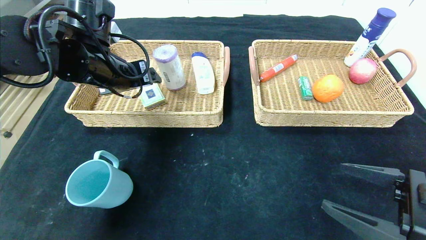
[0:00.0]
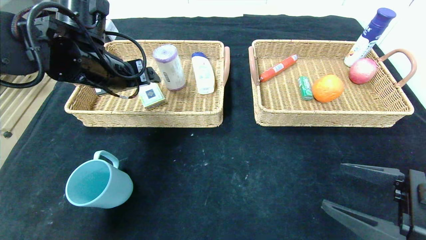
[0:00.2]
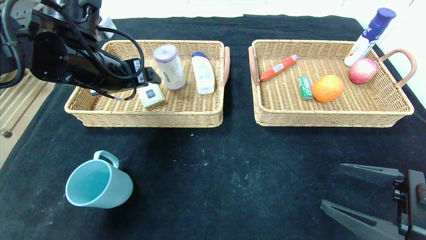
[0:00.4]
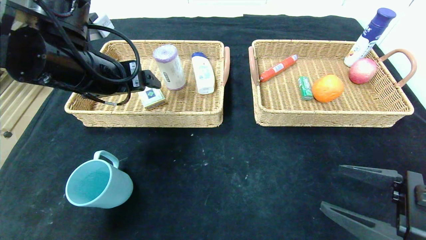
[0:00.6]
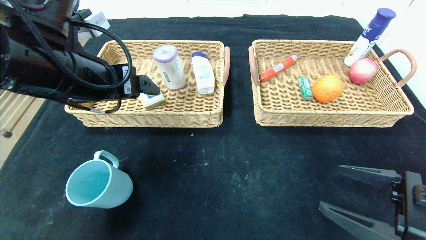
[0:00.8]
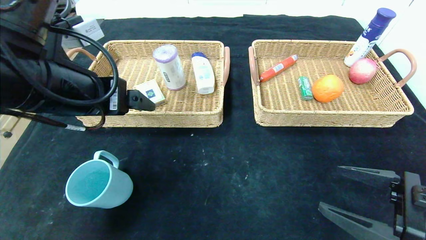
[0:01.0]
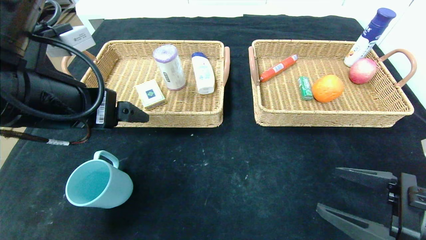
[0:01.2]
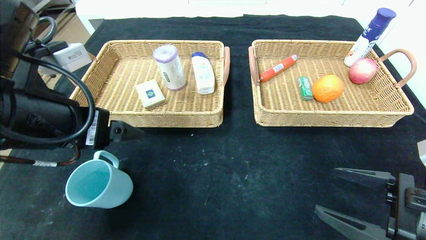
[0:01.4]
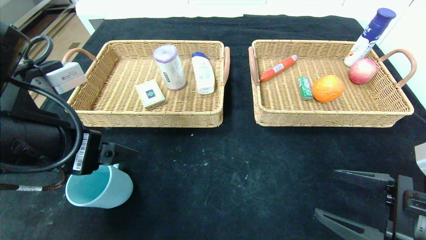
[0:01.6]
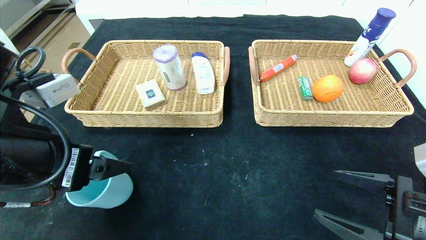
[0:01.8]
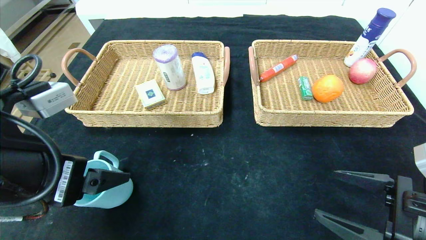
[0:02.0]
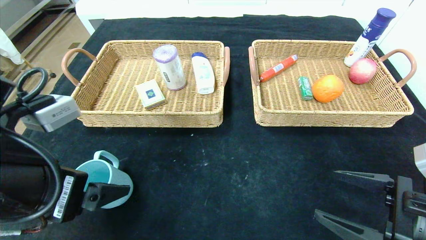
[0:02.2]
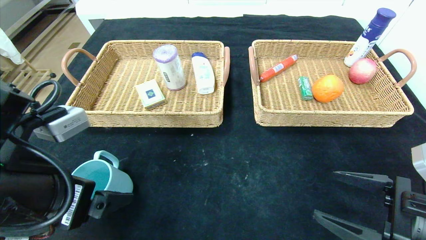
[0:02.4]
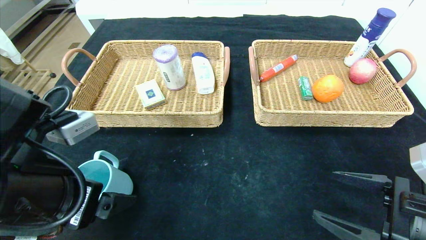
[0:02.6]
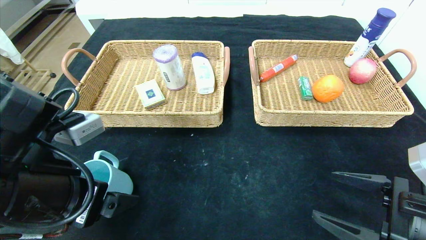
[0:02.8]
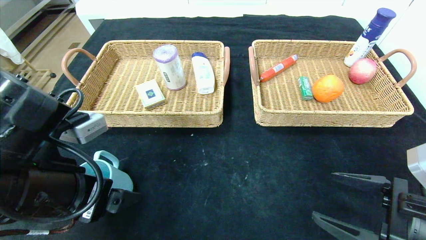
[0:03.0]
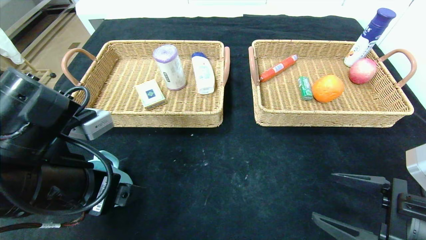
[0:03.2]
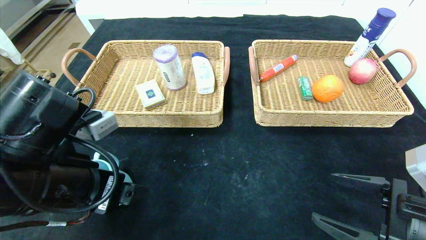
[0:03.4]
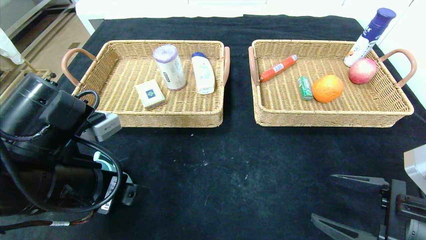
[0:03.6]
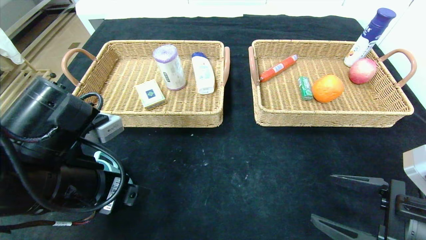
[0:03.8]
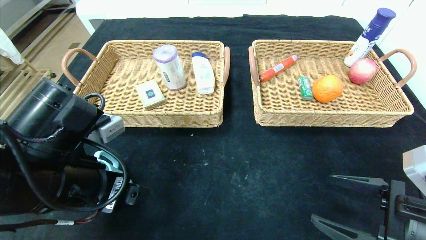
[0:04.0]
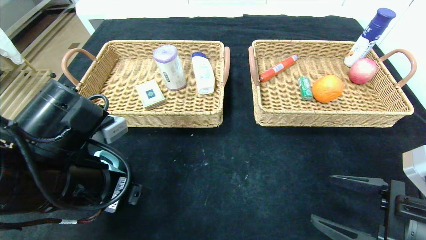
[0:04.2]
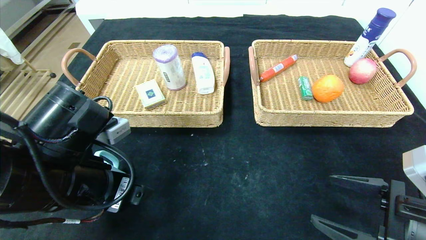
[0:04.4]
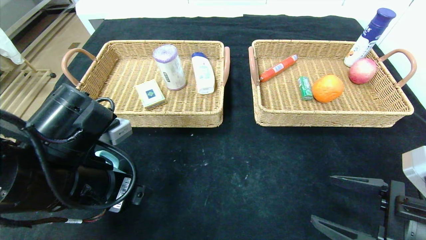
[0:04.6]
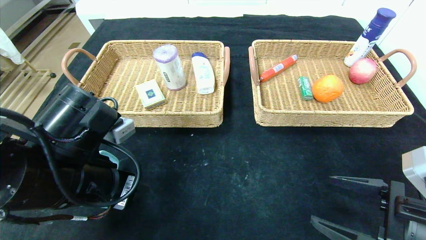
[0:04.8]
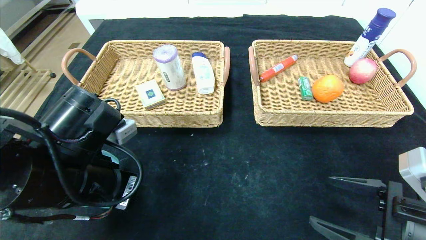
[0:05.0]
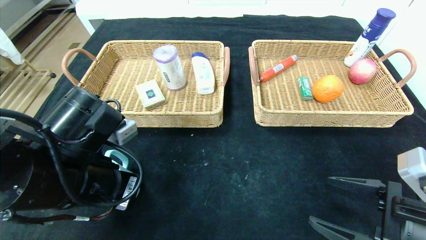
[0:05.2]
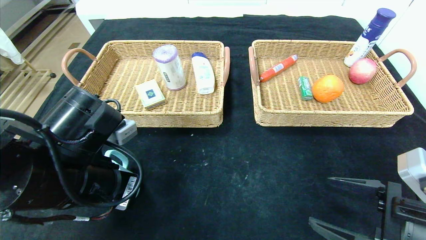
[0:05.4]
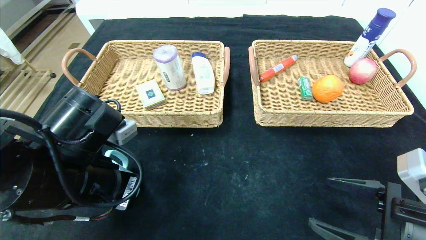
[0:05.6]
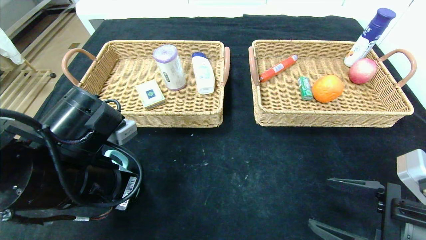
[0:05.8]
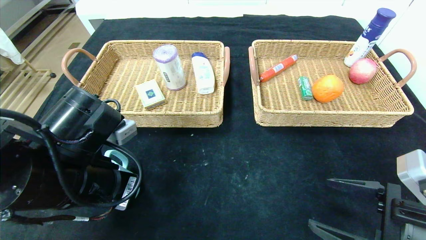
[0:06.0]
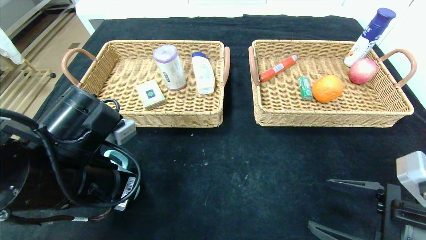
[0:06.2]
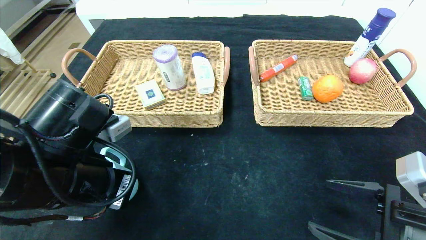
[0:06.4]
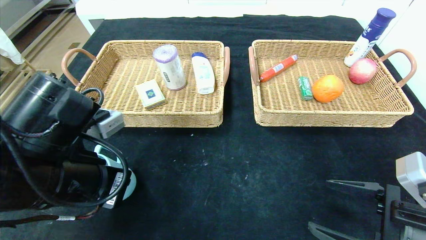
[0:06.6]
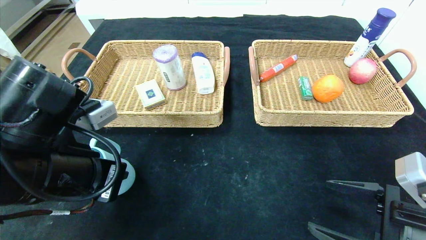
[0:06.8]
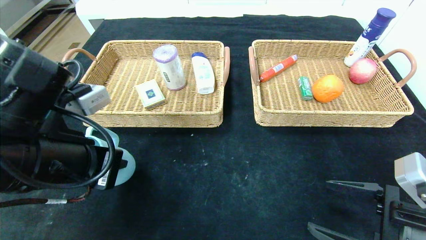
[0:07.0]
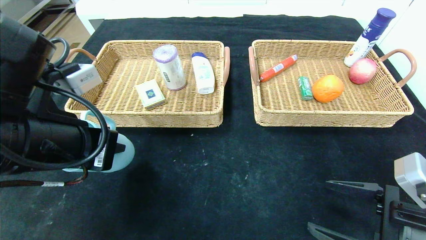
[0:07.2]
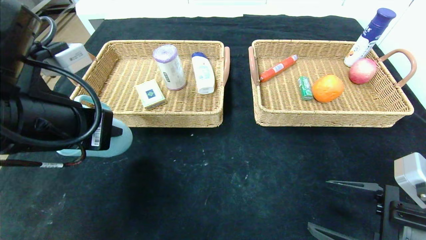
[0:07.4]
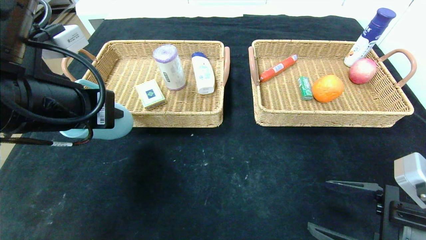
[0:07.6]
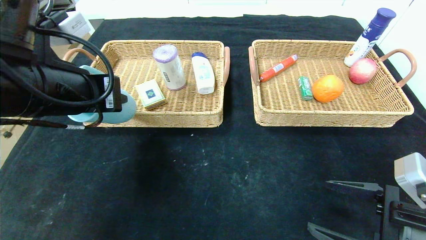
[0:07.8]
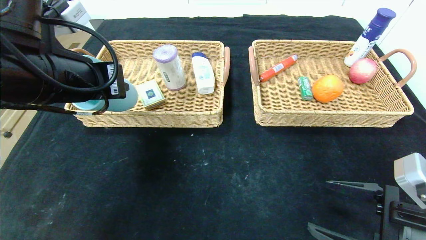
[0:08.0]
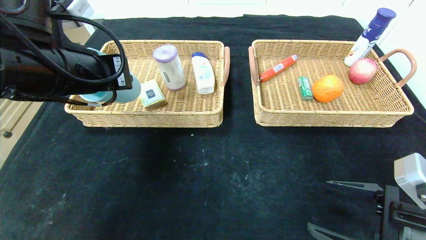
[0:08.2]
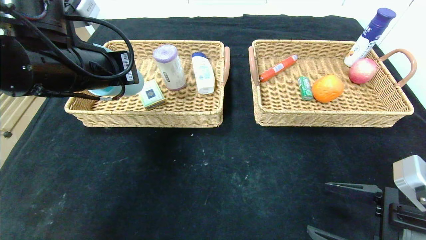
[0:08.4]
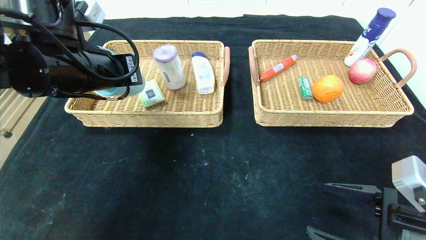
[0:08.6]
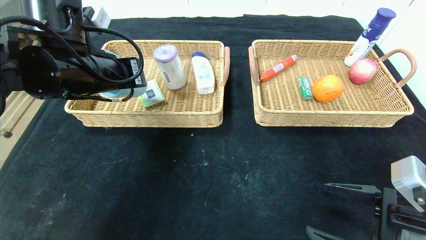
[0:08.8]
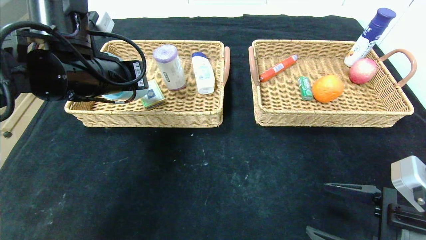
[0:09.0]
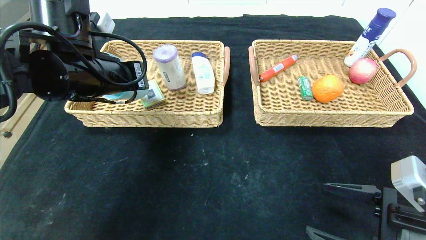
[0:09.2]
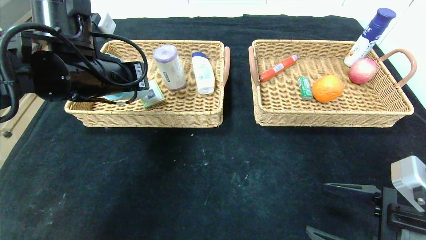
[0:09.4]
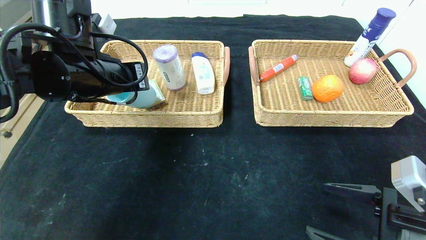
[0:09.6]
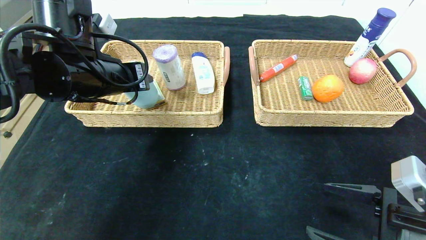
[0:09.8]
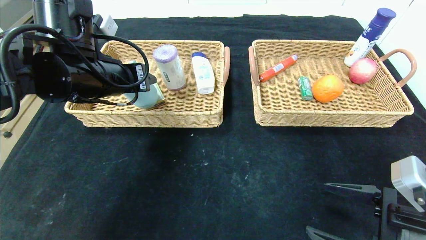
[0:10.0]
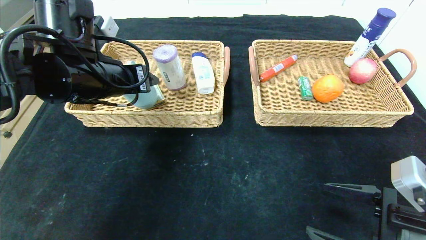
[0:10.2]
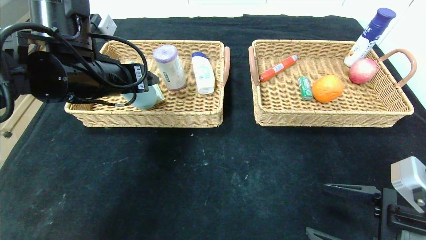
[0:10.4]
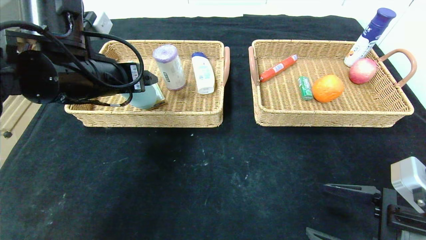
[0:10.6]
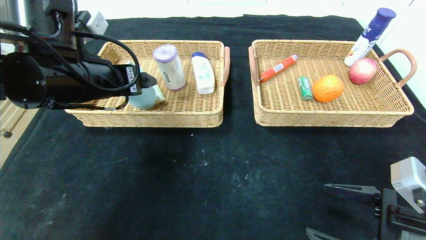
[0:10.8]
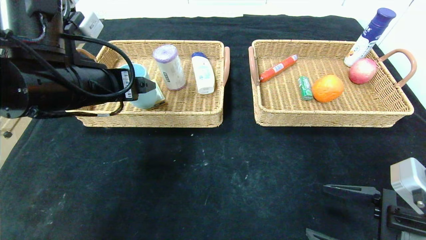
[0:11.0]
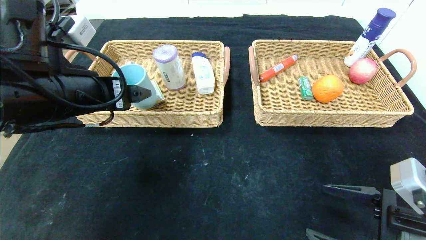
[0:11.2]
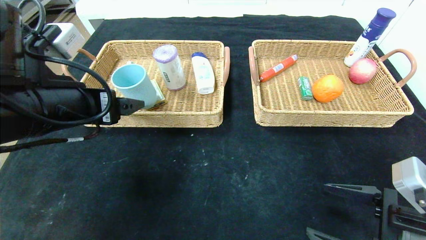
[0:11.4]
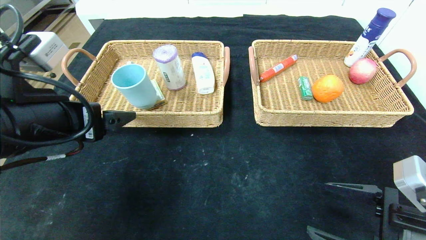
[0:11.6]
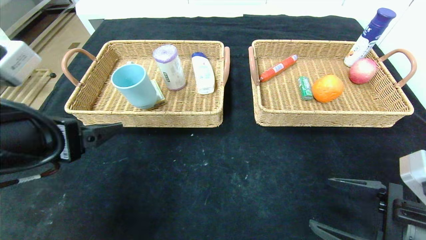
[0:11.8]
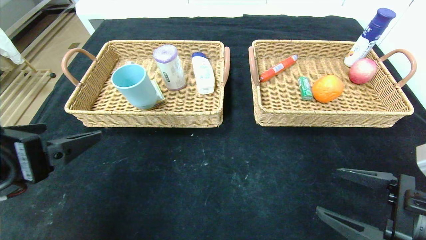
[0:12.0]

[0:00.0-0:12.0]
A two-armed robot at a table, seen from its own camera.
Step, 0:00.0 to 0:09.8: Grasp the blue cup and put it in the left basket.
0:00.0 to 0:01.6: The left gripper moves backward, about 15 cm.
0:01.6 to 0:03.0: The grippers make only small movements.
0:03.0 to 0:04.4: The grippers move only a little.
0:04.4 to 0:06.0: The left gripper closes its fingers.
0:06.0 to 0:07.6: The left gripper goes about 10 cm upward.
0:07.6 to 0:09.0: The left gripper shifts some 10 cm forward.
0:09.0 to 0:10.4: The left gripper opens.
0:10.4 to 0:12.0: The left gripper travels backward by roughly 15 cm.

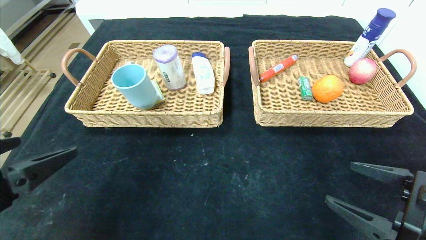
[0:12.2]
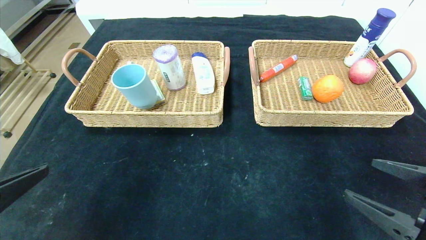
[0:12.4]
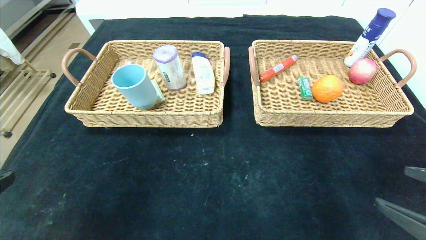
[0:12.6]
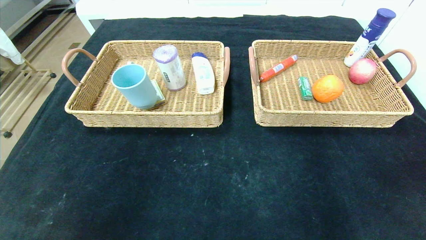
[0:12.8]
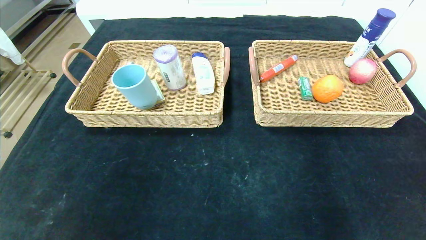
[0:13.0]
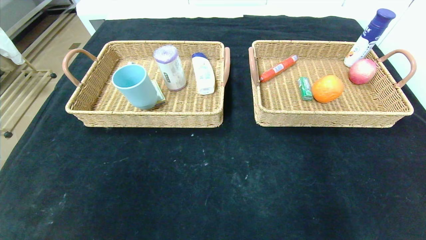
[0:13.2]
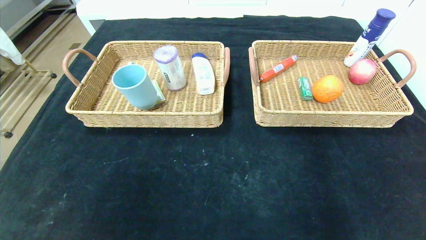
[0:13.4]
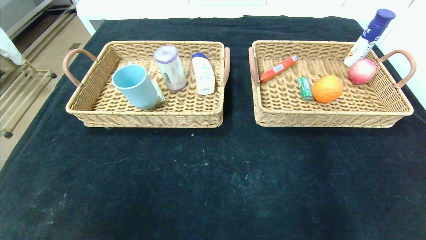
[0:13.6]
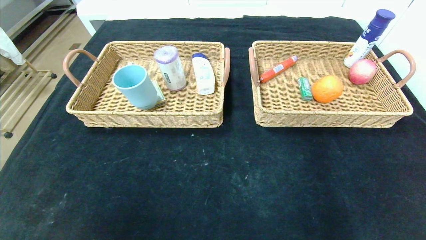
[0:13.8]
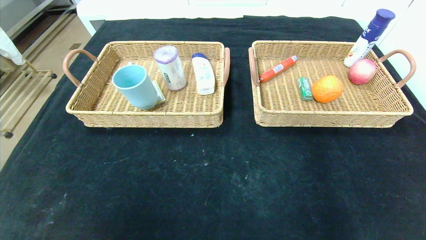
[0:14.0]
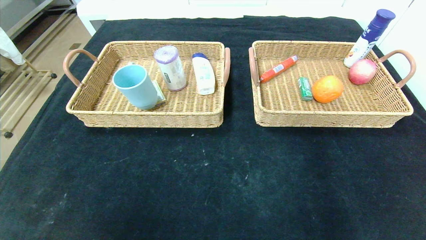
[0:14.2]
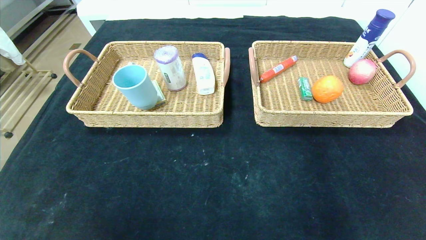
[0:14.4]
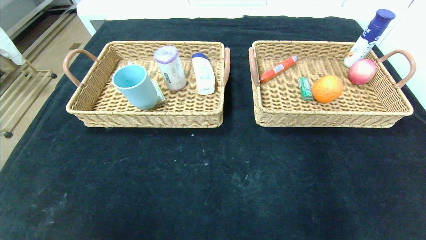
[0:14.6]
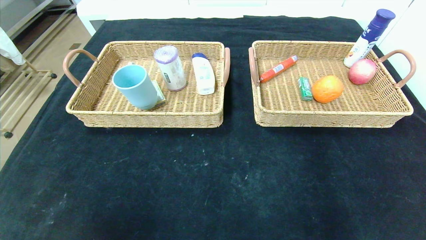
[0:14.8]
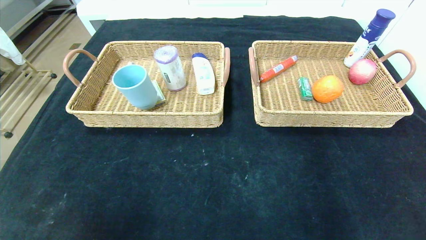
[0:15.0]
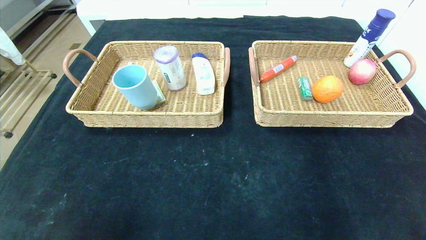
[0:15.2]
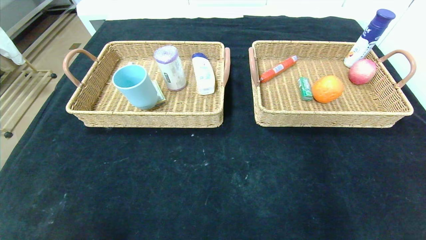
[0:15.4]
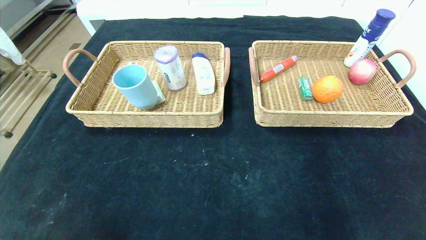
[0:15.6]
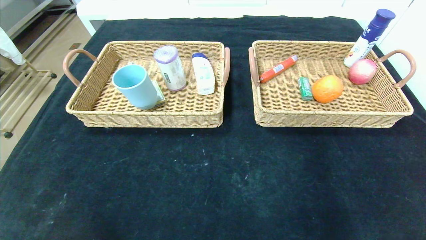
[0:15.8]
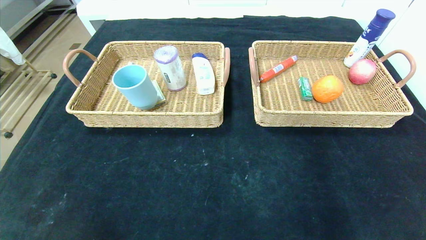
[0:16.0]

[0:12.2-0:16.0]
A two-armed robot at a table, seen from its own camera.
0:12.2 to 0:13.4: The right gripper moves backward and to the right, roughly 25 cm; the left gripper heads backward, covering roughly 25 cm.
